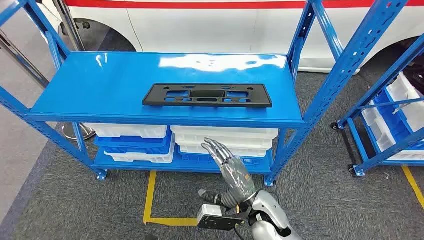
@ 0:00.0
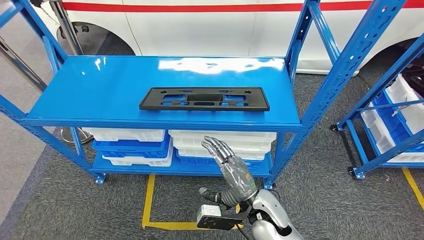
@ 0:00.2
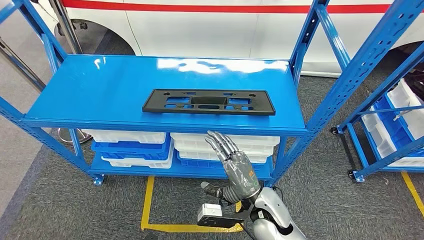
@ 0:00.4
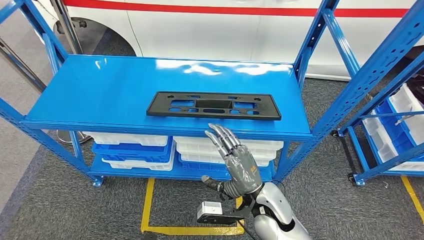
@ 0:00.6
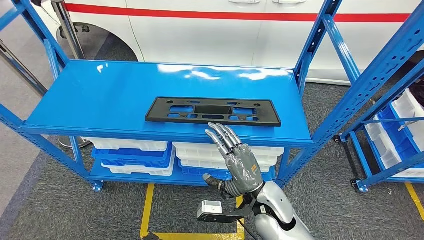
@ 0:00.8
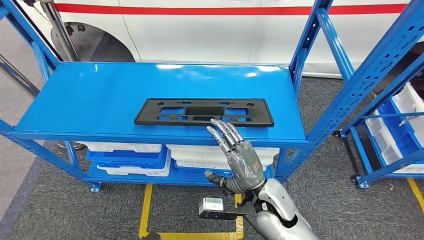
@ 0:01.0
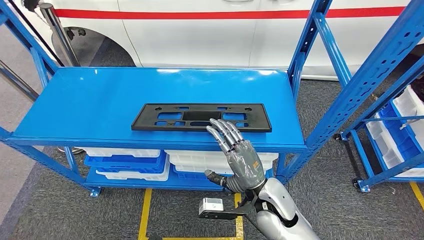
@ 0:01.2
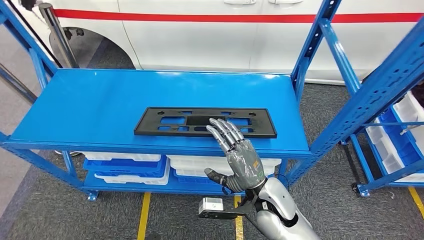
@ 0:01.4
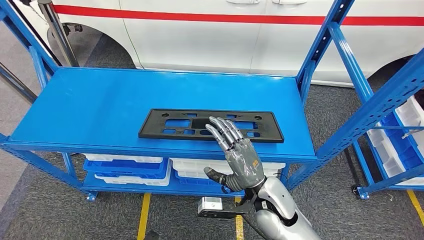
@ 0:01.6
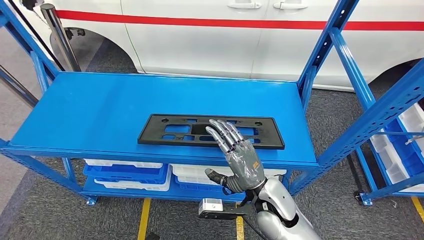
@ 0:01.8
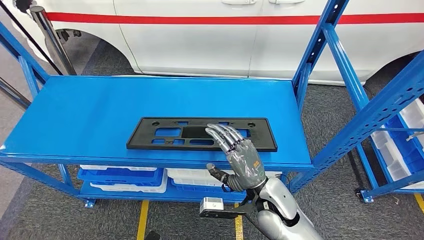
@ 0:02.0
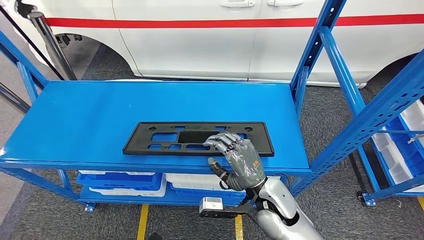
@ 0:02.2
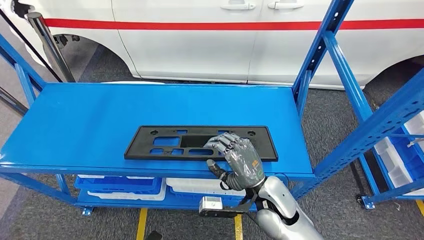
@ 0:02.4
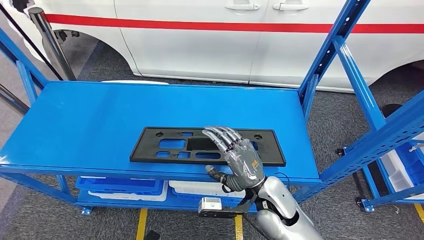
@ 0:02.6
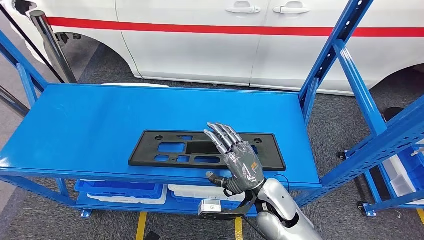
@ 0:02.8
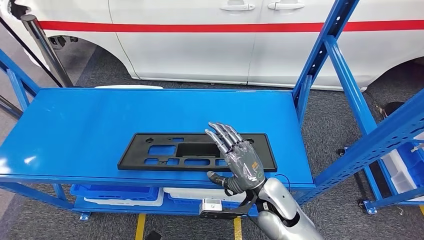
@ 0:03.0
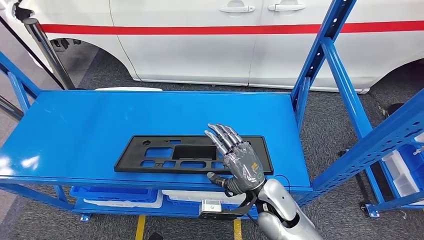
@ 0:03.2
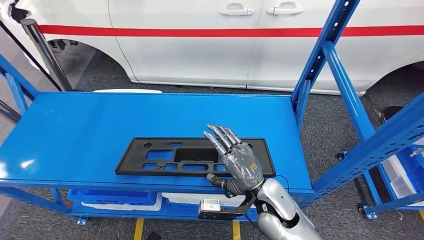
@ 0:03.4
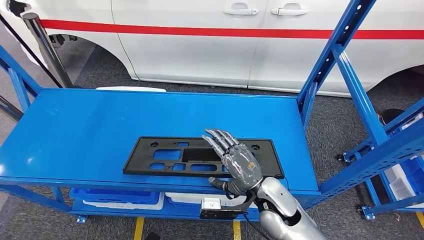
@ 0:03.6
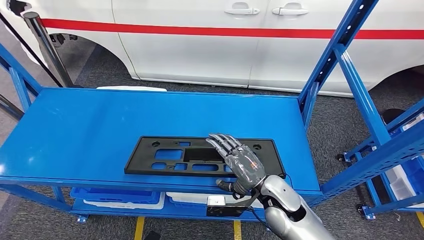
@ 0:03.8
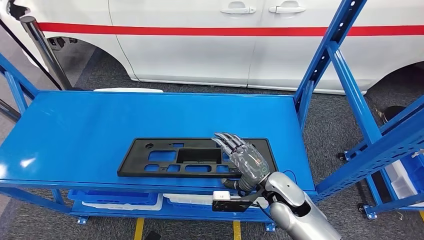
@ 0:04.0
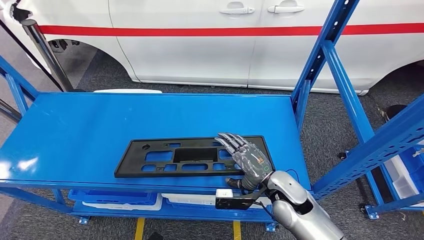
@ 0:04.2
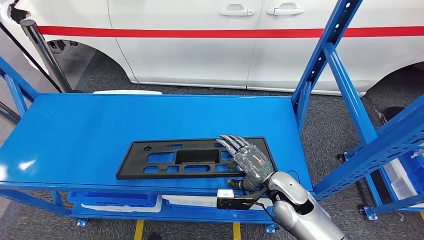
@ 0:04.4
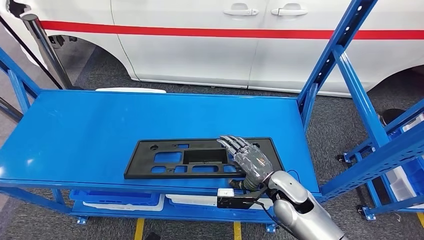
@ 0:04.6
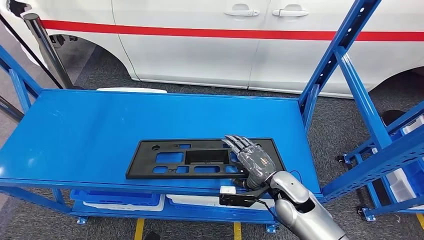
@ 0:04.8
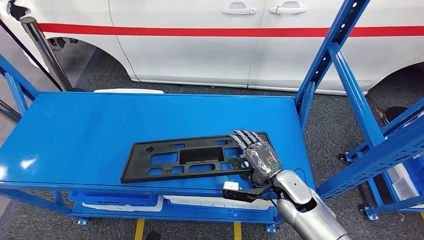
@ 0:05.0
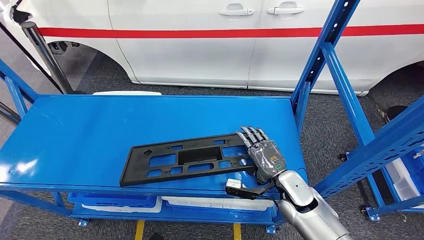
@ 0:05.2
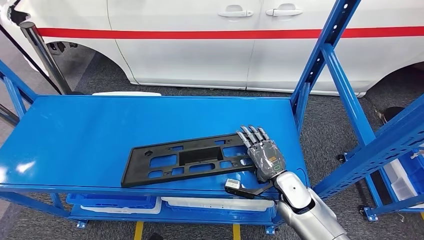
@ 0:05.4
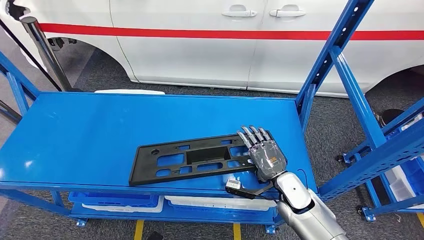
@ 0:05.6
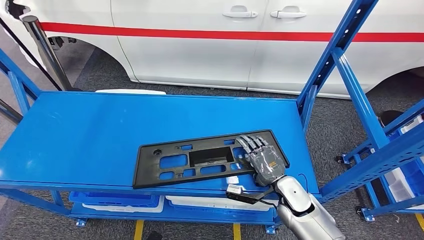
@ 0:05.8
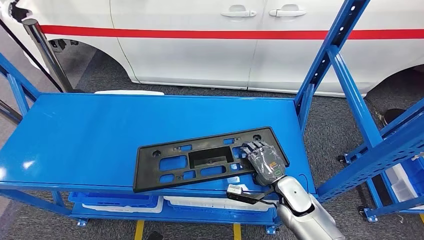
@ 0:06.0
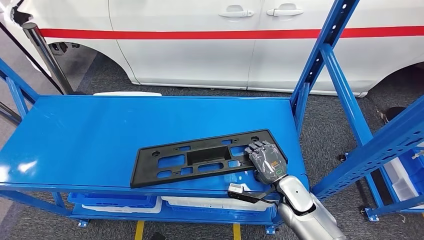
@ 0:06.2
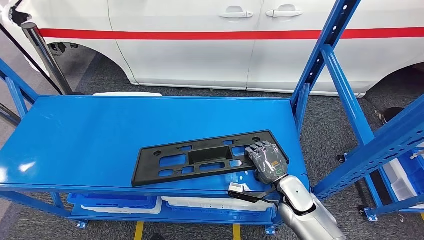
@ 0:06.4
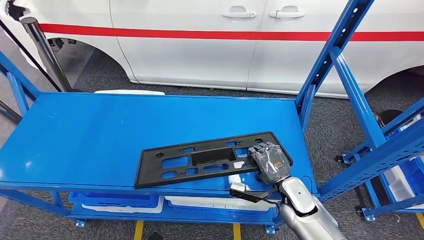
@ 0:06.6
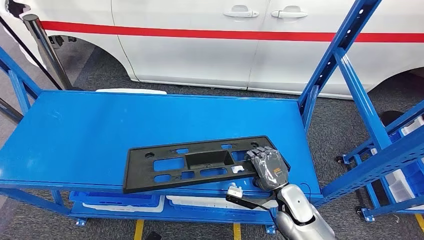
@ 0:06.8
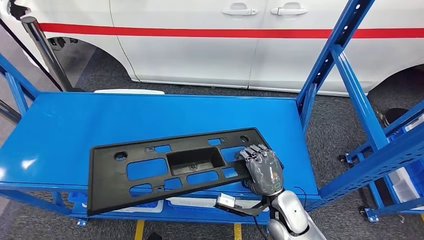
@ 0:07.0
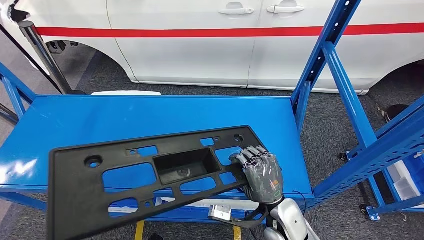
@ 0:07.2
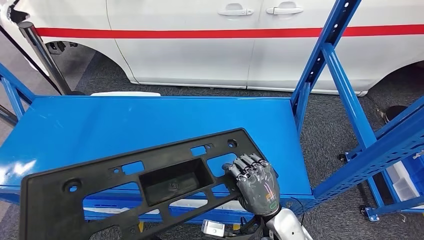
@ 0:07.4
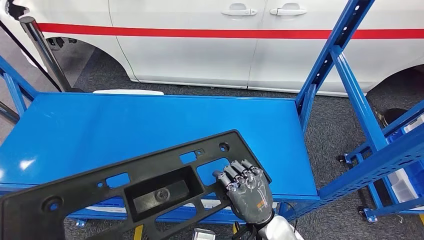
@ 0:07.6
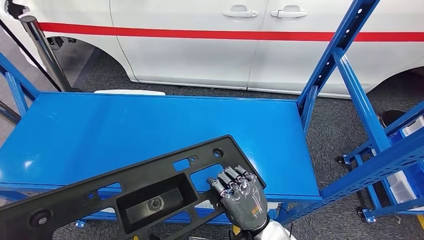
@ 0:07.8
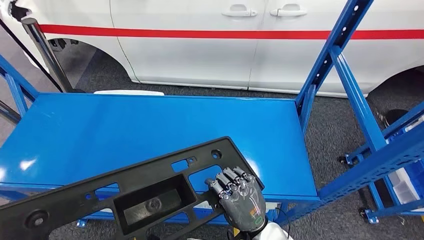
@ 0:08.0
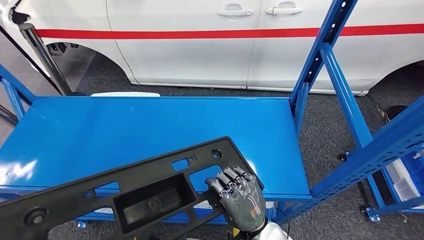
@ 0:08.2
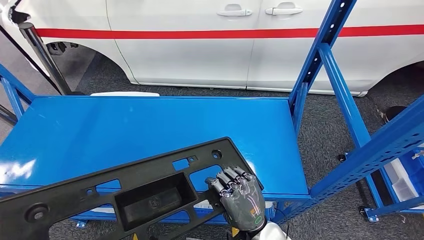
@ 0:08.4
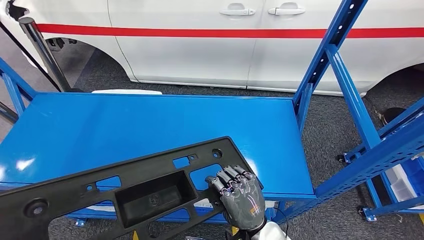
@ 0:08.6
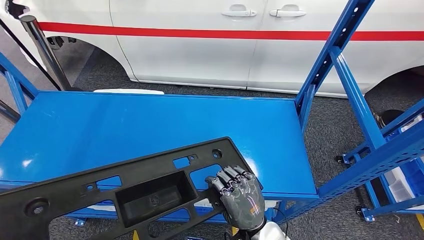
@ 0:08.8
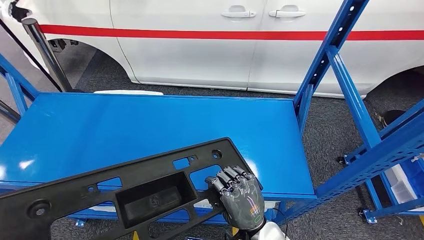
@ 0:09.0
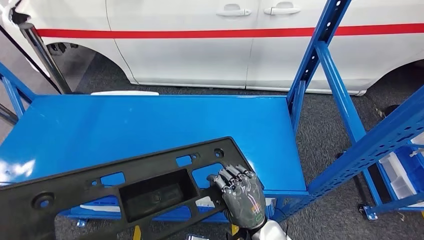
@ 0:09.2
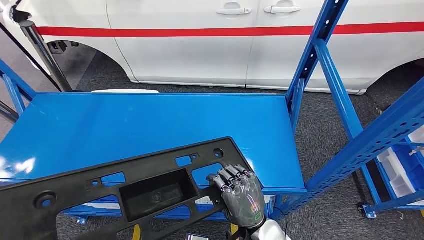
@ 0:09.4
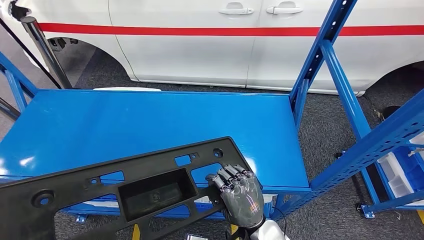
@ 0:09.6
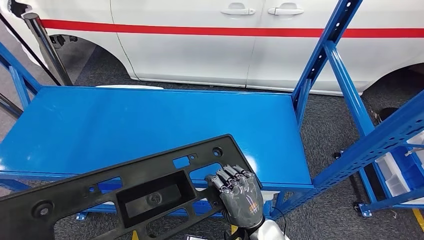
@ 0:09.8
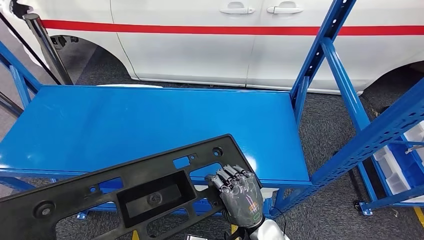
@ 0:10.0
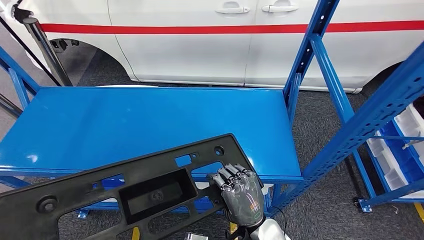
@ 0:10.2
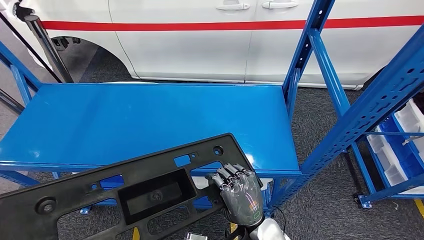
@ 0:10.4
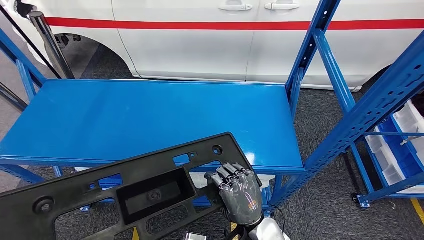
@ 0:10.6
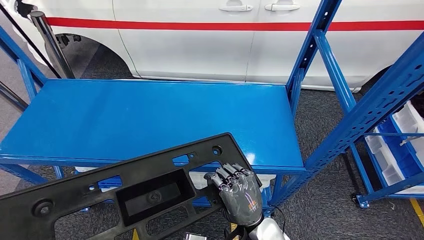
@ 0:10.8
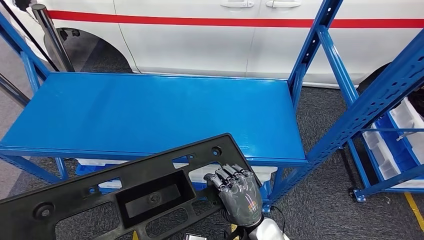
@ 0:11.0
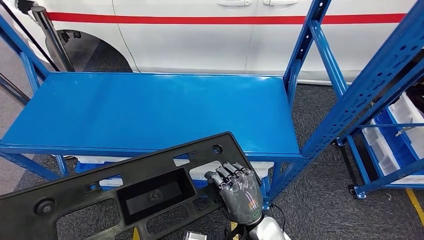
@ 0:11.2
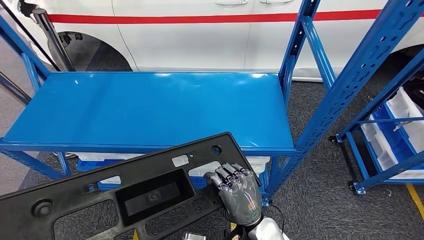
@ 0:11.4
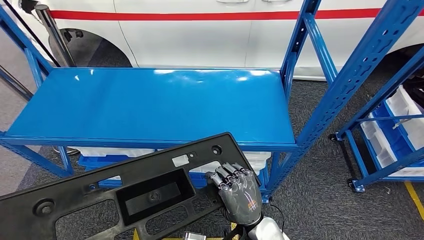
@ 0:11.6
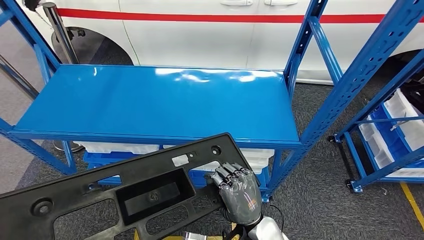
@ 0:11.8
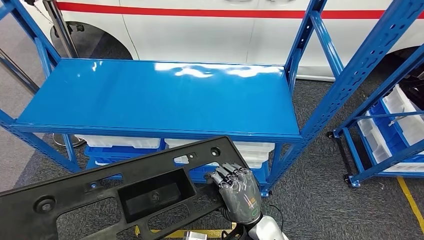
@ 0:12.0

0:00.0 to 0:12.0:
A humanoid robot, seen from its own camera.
Step, 0:00.0 to 0:09.2: Pick up the large material from the shelf.
0:04.4 to 0:06.0: The right hand shifts approximately 5 cm downward.
0:07.6 to 0:09.0: The hands stay close to where they were, moving slightly.

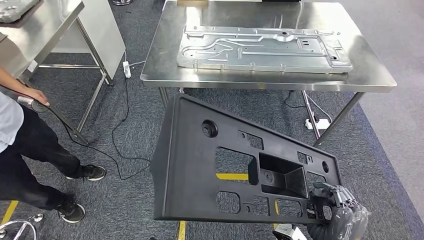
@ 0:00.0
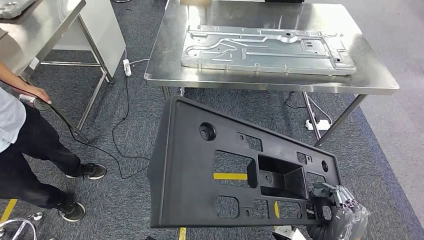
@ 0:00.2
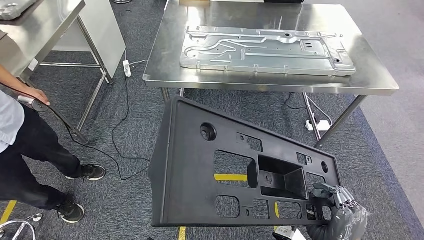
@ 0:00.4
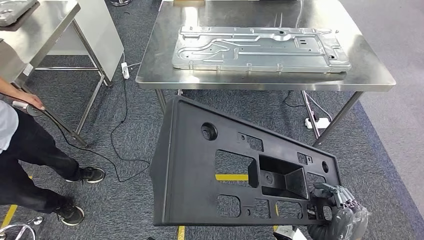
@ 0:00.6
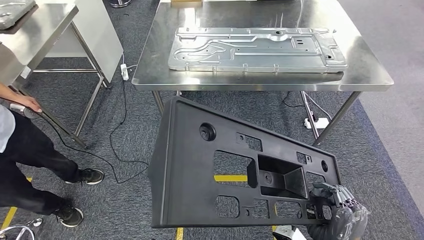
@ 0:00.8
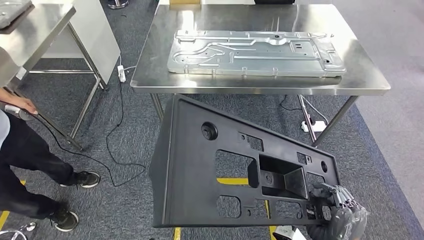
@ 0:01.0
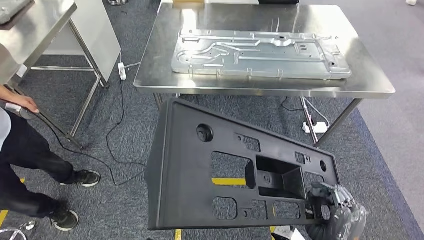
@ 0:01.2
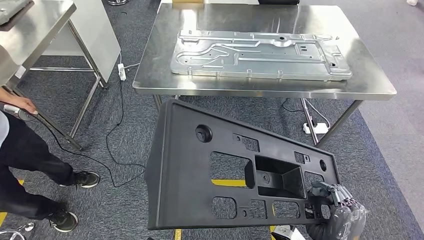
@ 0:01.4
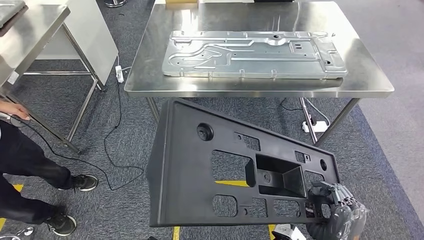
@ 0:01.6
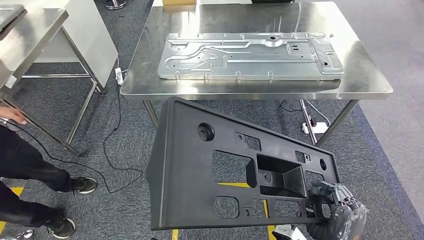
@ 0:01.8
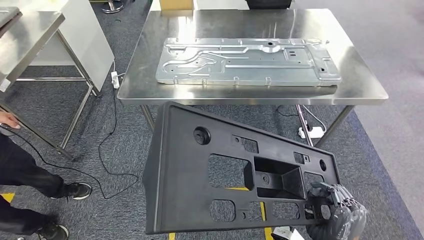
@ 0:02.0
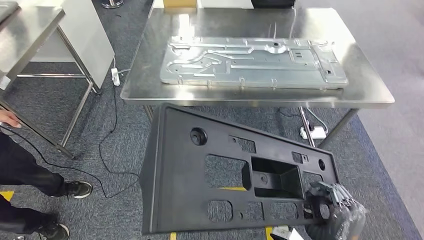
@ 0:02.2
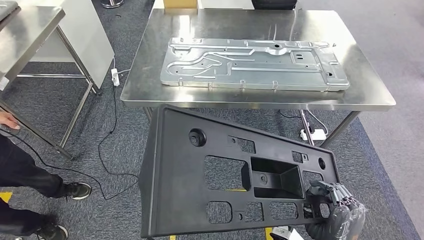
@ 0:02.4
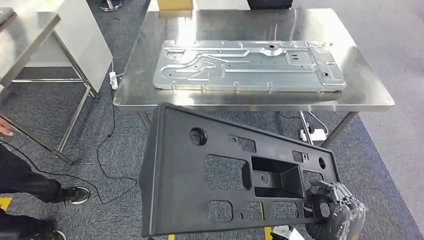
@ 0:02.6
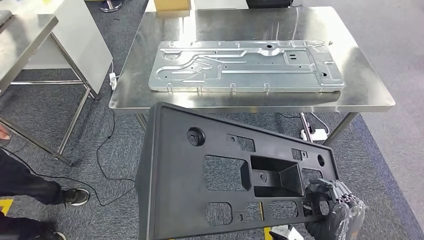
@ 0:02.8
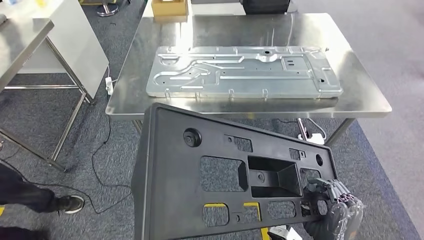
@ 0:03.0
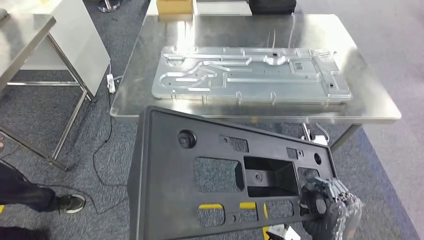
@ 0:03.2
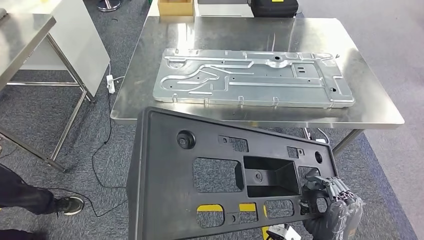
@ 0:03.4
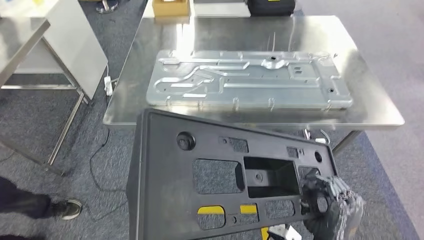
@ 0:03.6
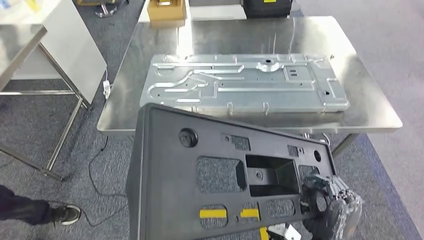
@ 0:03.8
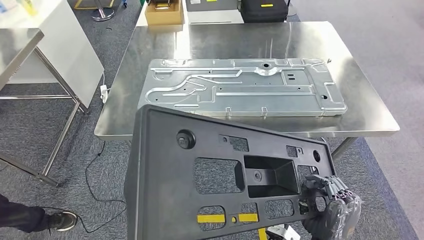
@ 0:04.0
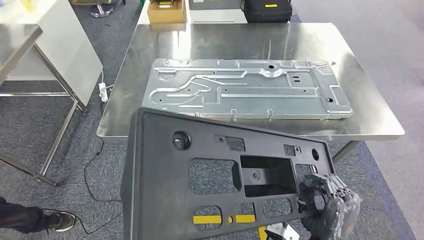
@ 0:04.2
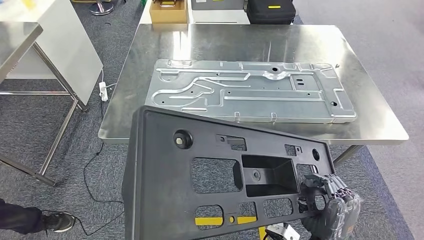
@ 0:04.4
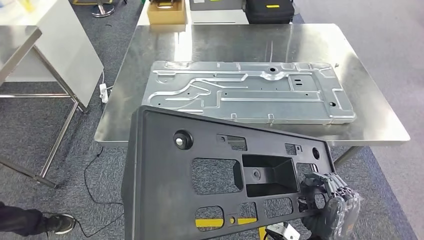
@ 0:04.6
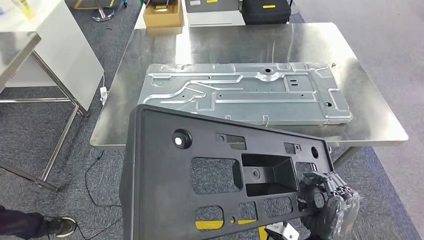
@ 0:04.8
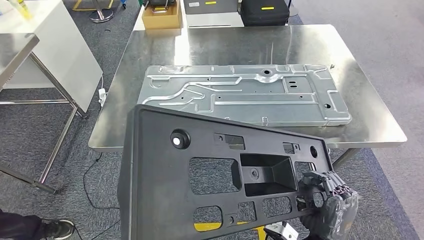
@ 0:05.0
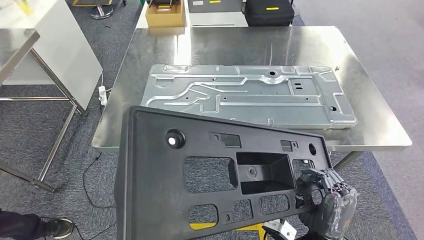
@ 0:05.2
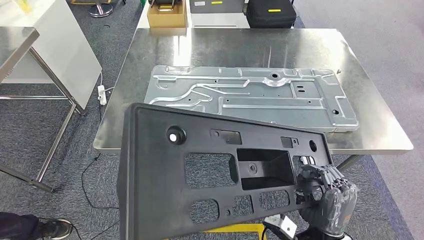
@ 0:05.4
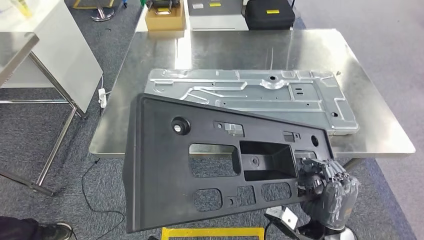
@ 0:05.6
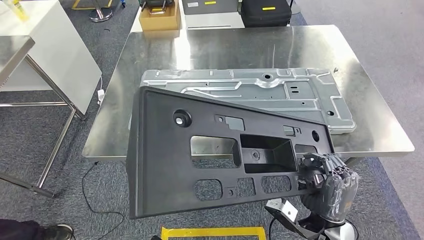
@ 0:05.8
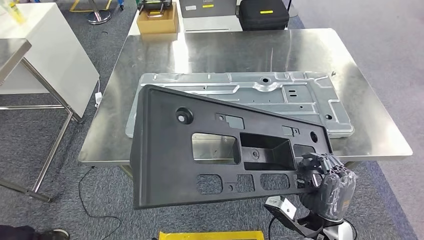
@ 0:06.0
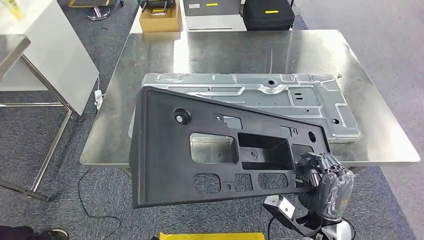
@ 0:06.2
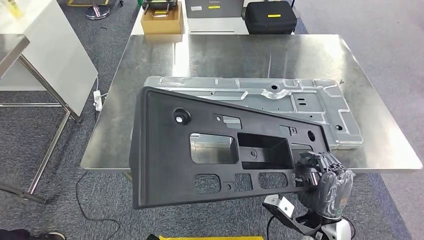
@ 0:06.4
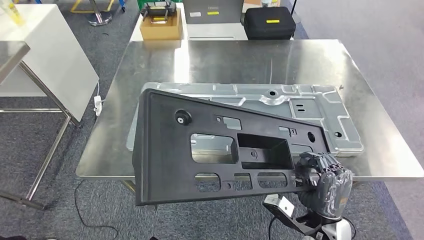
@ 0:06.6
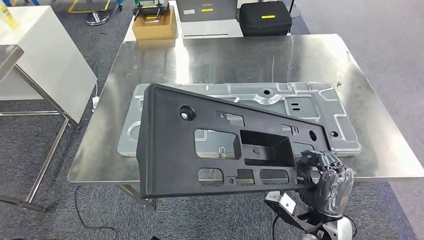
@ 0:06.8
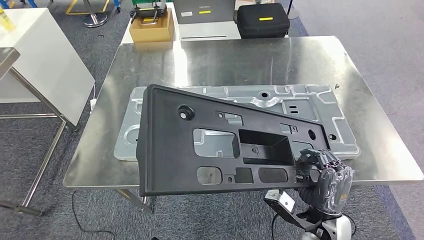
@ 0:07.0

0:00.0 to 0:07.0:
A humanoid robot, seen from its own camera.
Step, 0:00.0 to 0:04.4: Move the large material to the workbench.
